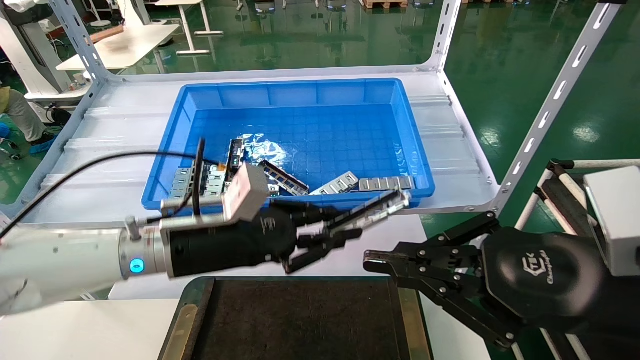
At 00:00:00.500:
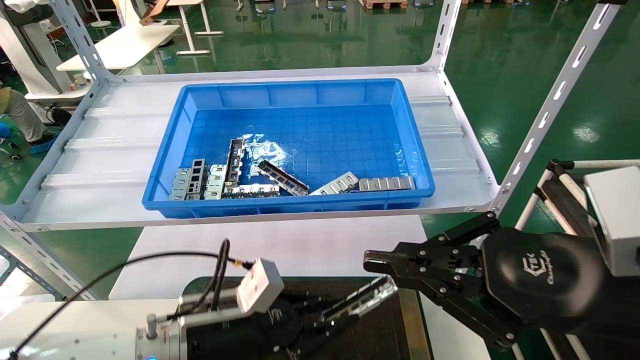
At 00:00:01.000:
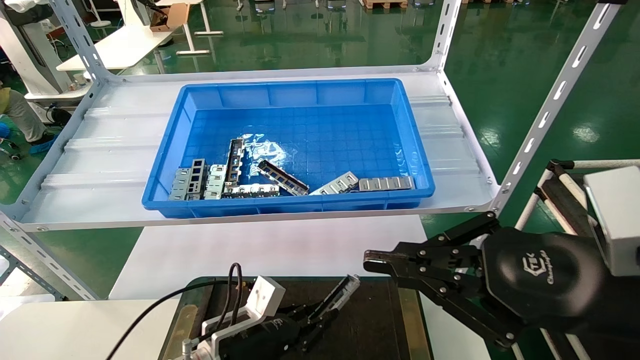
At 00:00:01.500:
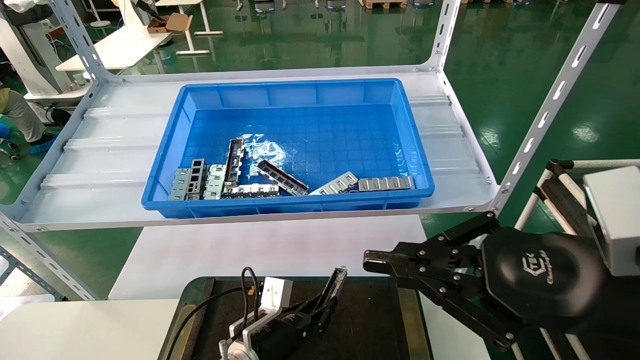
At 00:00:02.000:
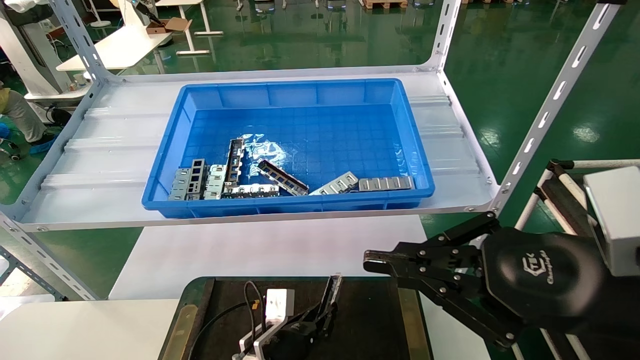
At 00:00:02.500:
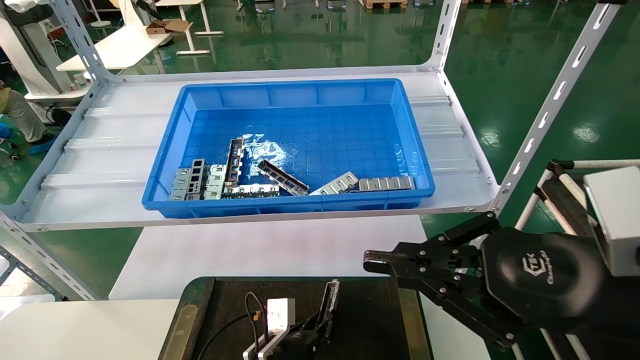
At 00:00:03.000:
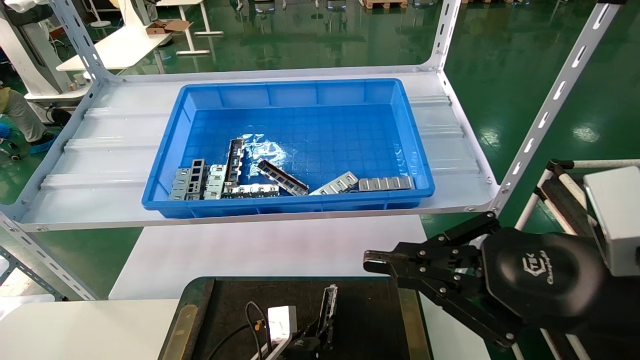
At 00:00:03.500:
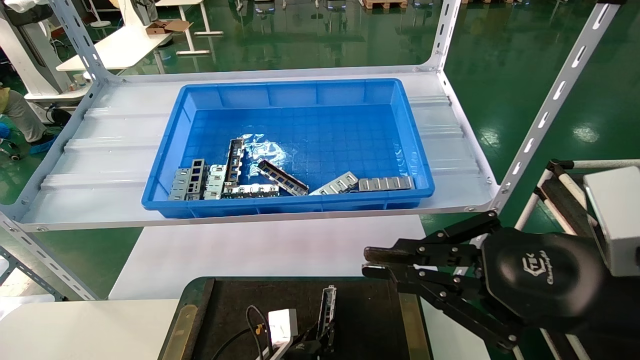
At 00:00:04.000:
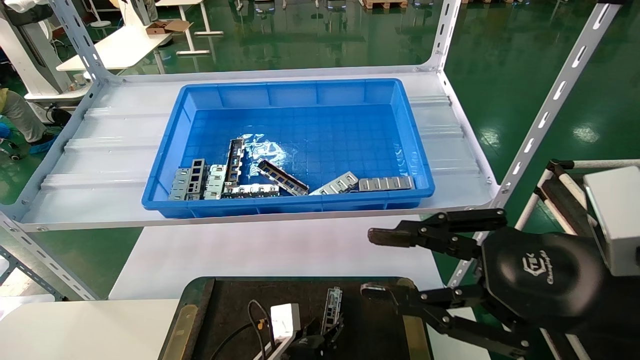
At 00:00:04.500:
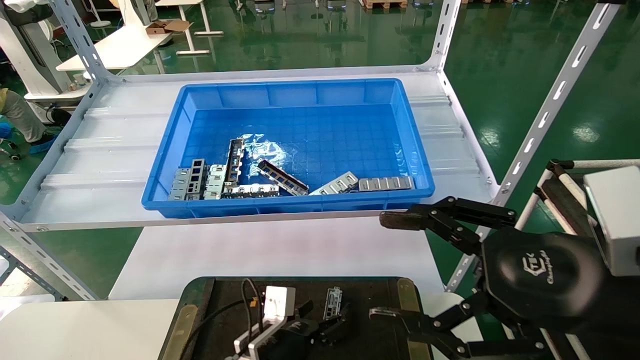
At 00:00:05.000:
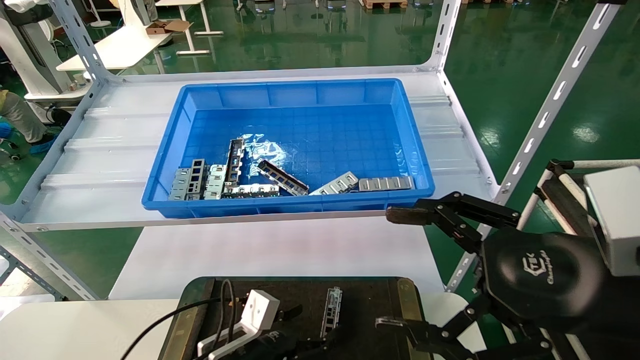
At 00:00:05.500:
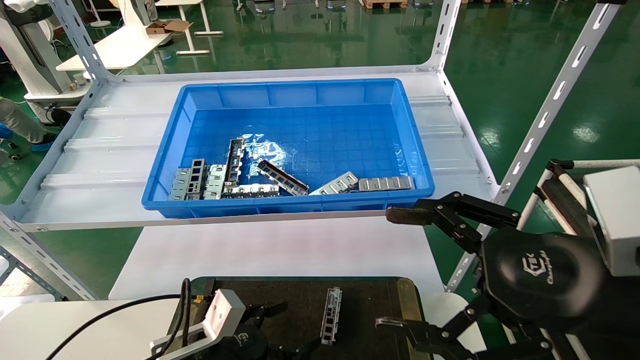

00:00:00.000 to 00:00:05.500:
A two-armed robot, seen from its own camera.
Task of the whole recording: Grasp the part with one hand and place it on the black container.
Step, 00:00:00.000 to 00:00:03.500: Place the front USB bracket into the box.
00:00:00.000 to 00:00:02.000: The left gripper moves downward, roughly 25 cm.
00:00:02.000 to 00:00:03.500: The grippers move only a little.
00:00:03.500 to 00:00:05.500: The left gripper goes roughly 15 cm to the left and upward, and opens up, while the right gripper opens its fingers.
